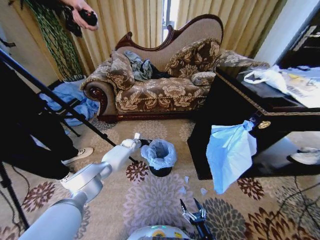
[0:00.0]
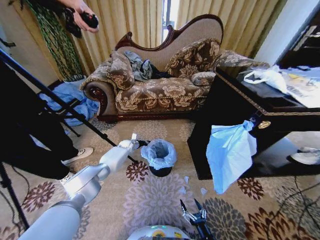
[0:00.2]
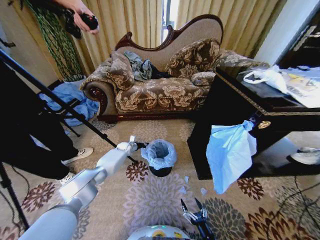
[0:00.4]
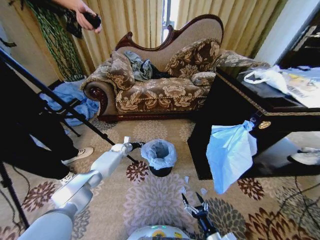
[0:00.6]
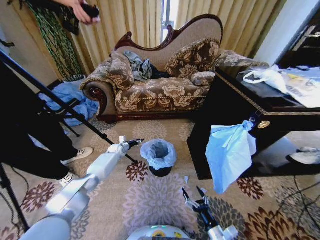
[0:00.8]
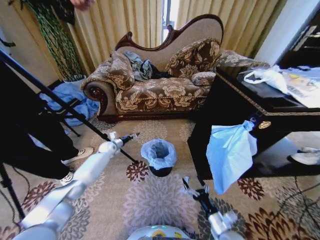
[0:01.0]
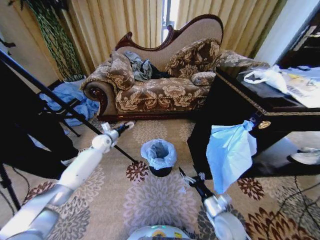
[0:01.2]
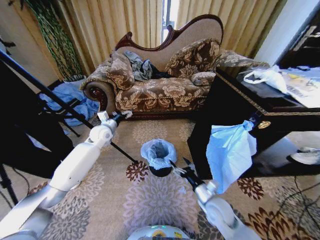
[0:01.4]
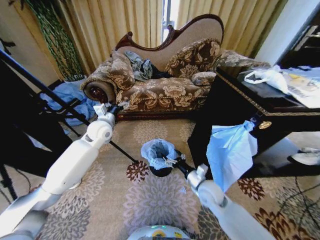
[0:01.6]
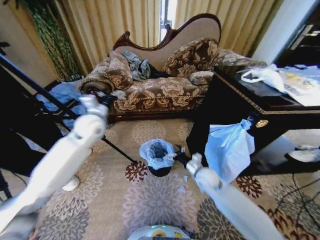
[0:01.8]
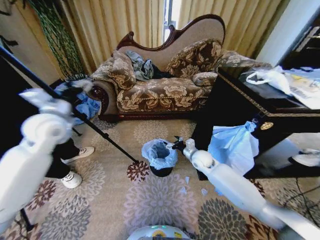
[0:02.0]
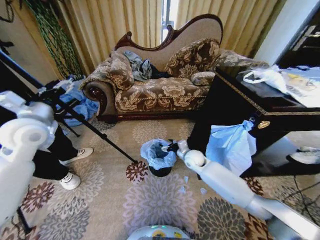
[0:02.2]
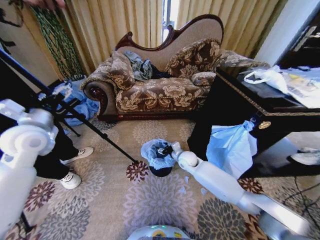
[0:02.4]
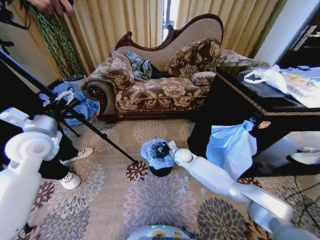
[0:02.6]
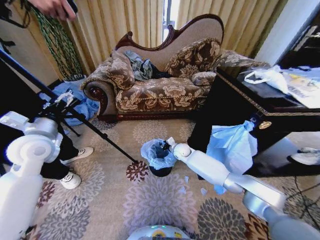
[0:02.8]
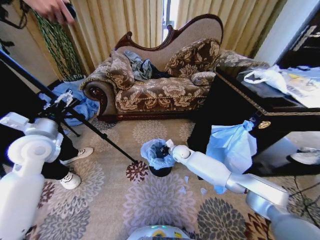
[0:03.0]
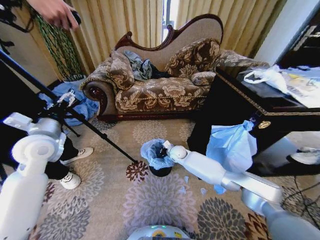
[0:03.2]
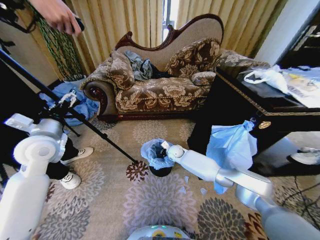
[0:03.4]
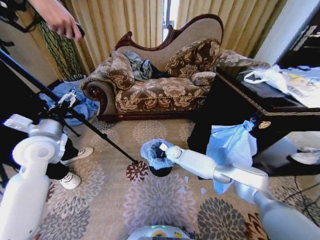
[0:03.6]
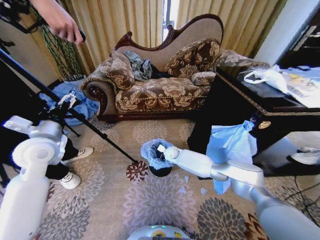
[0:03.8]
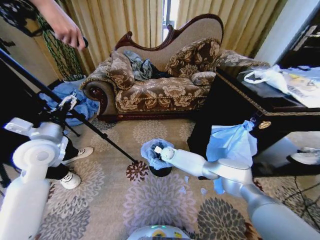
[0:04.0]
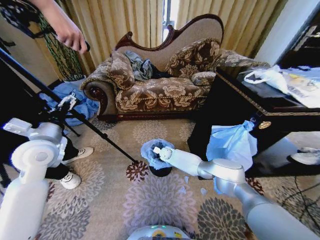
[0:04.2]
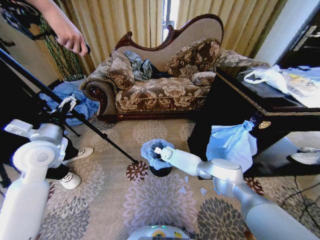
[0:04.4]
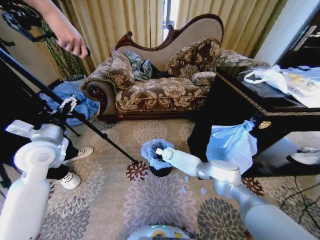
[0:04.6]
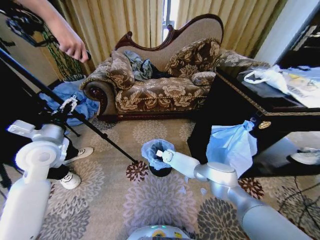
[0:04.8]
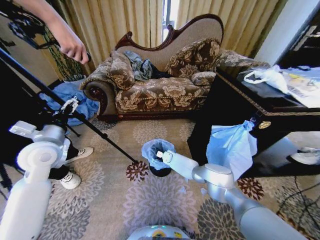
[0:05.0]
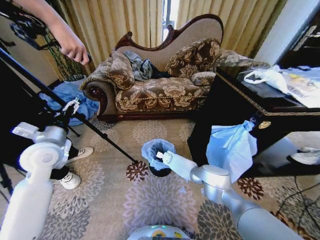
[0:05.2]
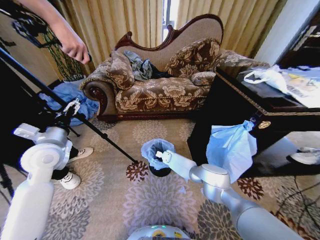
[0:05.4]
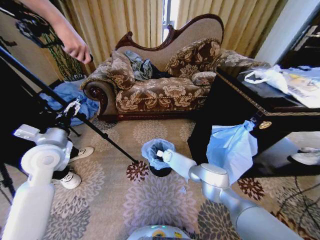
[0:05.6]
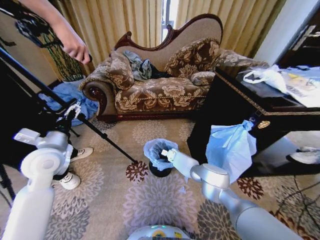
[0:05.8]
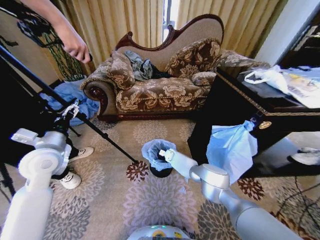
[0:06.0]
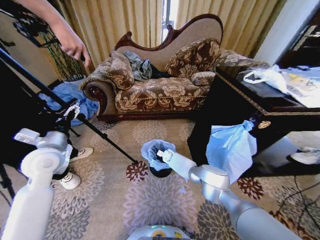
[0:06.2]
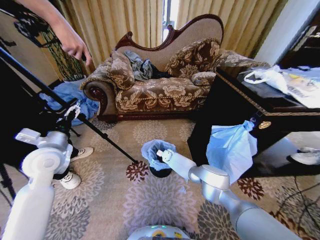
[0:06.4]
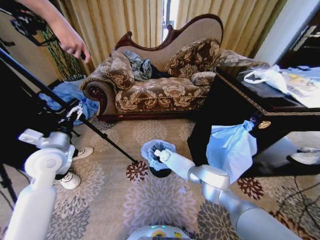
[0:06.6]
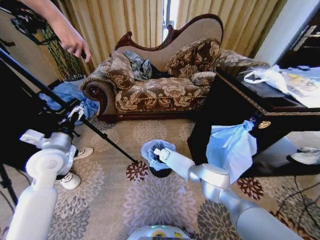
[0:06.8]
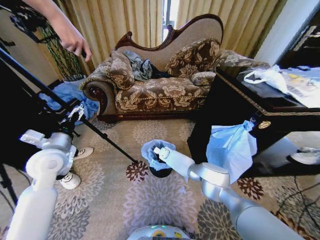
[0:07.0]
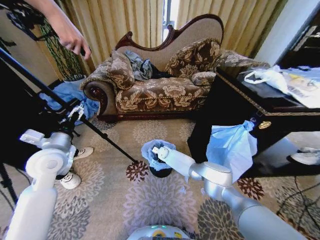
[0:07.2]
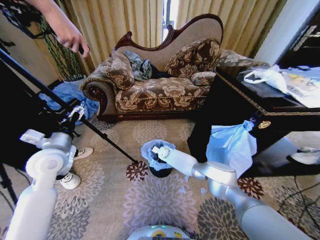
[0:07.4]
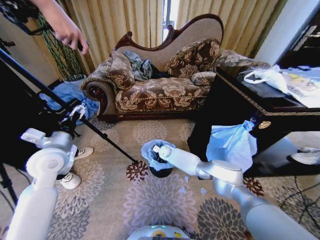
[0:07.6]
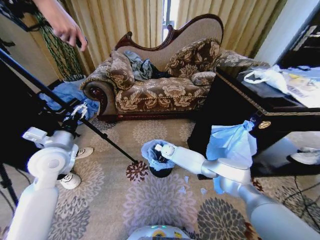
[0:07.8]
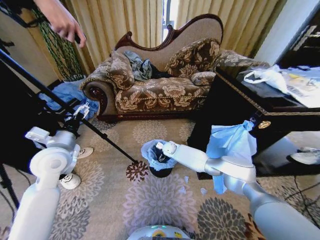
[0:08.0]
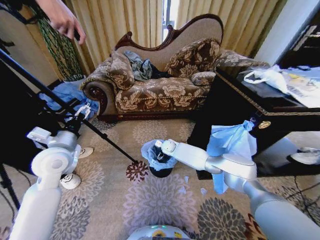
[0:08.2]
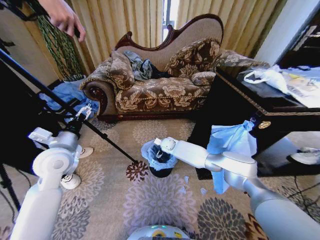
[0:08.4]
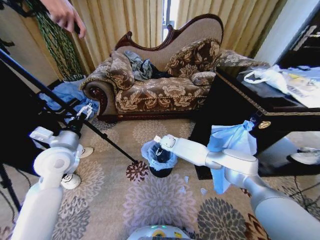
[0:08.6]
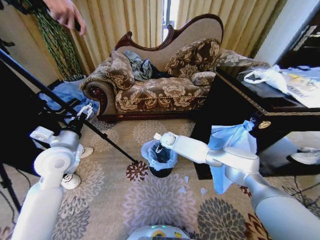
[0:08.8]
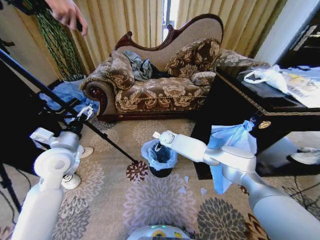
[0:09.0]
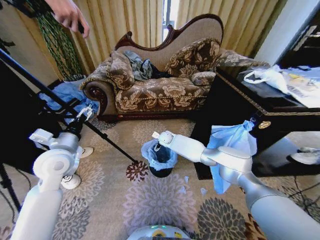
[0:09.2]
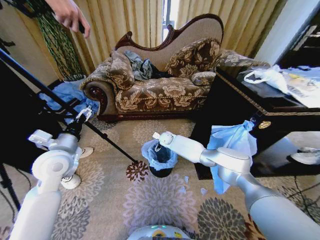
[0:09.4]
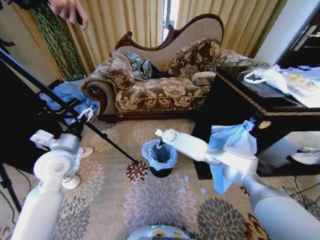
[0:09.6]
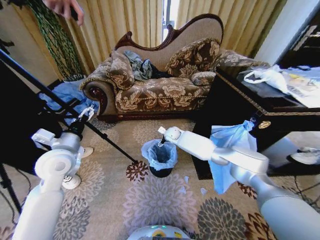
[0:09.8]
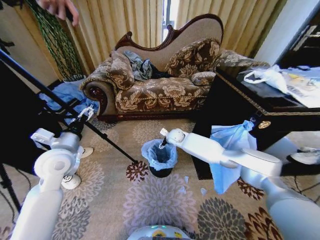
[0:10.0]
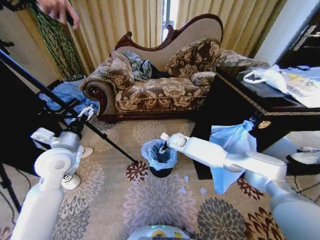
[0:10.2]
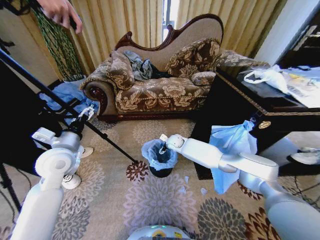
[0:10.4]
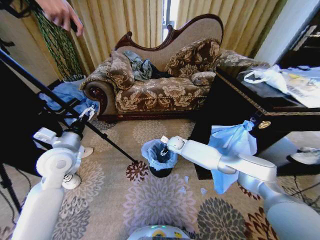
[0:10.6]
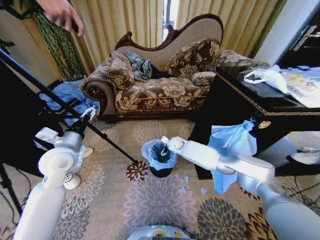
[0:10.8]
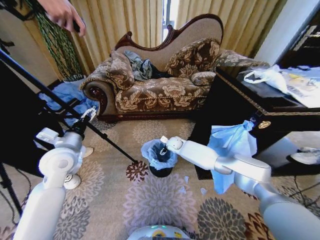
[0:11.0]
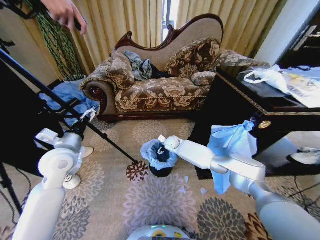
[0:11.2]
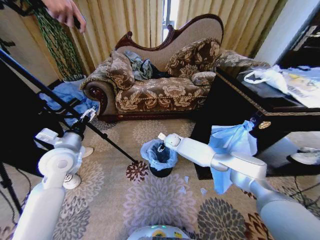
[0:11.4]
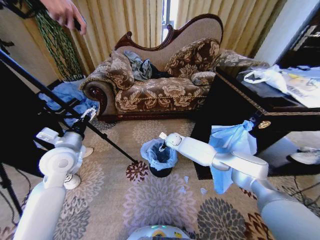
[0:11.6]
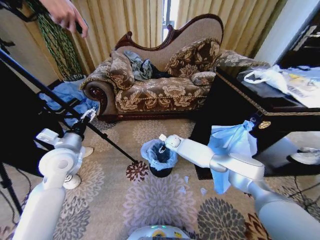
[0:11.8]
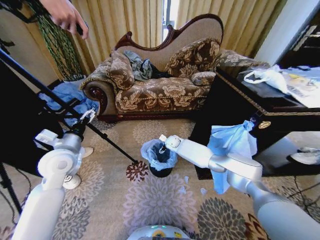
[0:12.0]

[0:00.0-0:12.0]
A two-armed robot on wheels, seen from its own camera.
Task of the whole recording: Place a garbage bag over the trash bin.
0:00.0 to 0:01.6: The left gripper shifts some 30 cm upward and backward, and opens. The right gripper heads forward and upward, covering about 30 cm.
0:01.6 to 0:03.0: The left gripper moves backward and to the left, some 20 cm. Meanwhile the right gripper shifts roughly 25 cm forward and to the left, and closes its fingers.
0:03.0 to 0:04.4: The right gripper goes roughly 10 cm downward and to the left.
0:04.4 to 0:06.0: The right gripper changes place by approximately 5 cm.
0:06.0 to 0:07.6: The right gripper travels upward by about 5 cm, and opens its fingers.
0:07.6 to 0:09.0: The right gripper heads upward, covering about 10 cm.
0:09.0 to 0:10.4: The right gripper shifts by about 5 cm.
0:10.4 to 0:12.0: The grippers make only small movements.

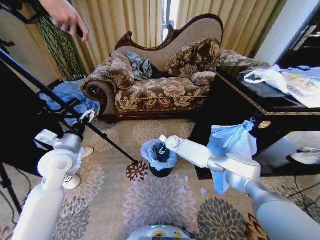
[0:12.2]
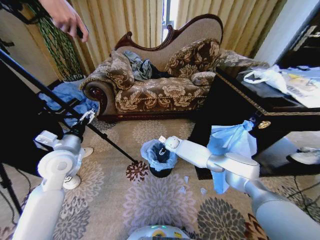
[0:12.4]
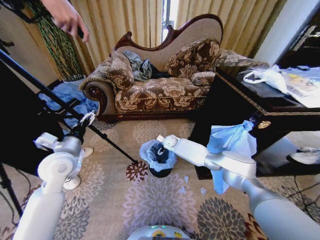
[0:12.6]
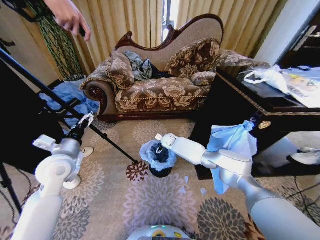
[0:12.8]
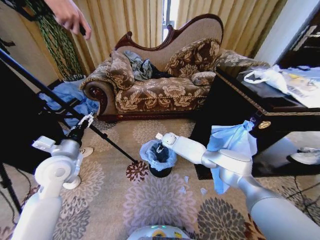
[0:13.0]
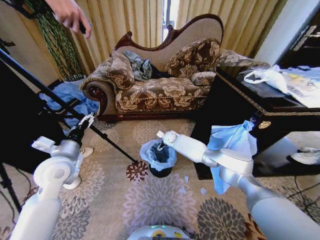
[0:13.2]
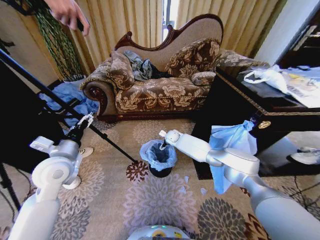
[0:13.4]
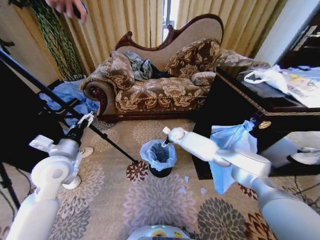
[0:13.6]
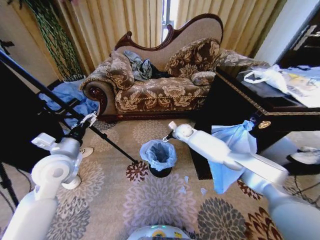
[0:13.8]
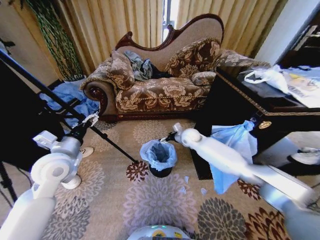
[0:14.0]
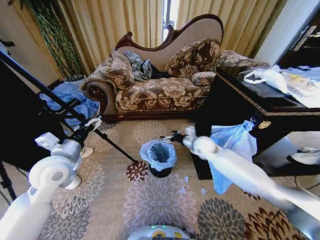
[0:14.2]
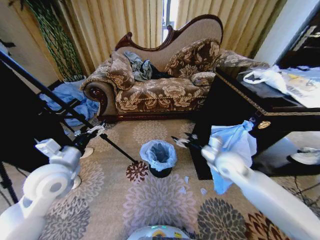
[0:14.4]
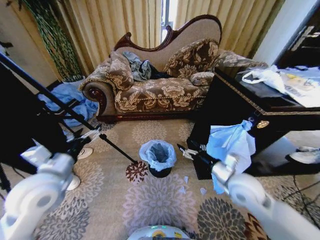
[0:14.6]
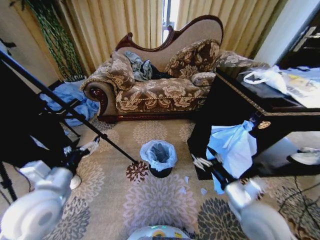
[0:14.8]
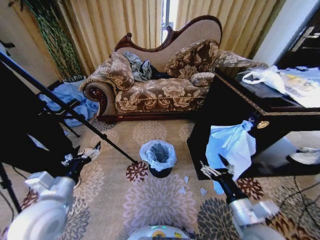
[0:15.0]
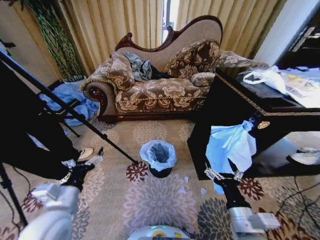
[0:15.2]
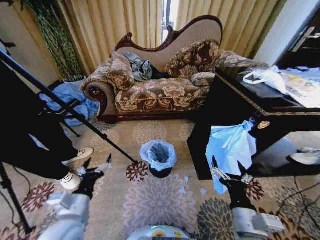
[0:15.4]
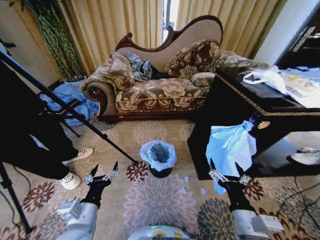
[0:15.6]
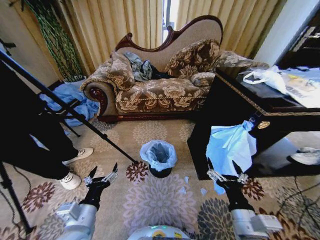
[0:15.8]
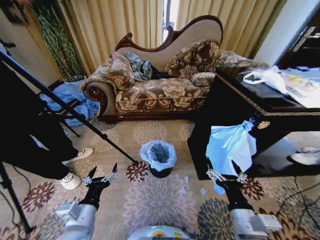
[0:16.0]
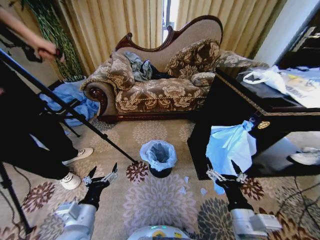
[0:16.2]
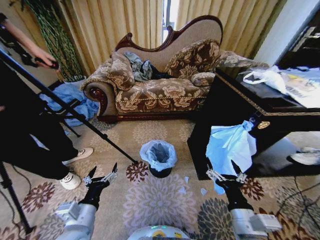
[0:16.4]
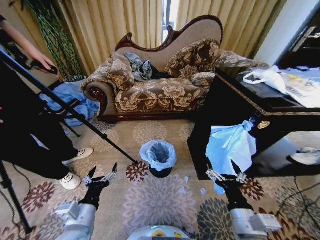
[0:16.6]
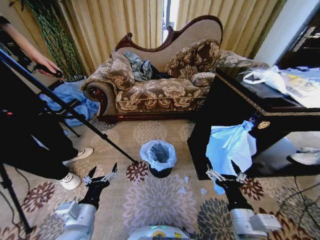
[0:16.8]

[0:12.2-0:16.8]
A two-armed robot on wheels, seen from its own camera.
Task of the whole recording: Place a garbage bag over the trash bin.
0:12.2 to 0:13.8: The right gripper moves upward and to the right, approximately 10 cm.
0:13.8 to 0:15.2: The left gripper travels backward and downward by roughly 15 cm. Meanwhile the right gripper is displaced backward by about 50 cm.
0:15.2 to 0:16.8: The left gripper heads to the right, covering roughly 5 cm.
